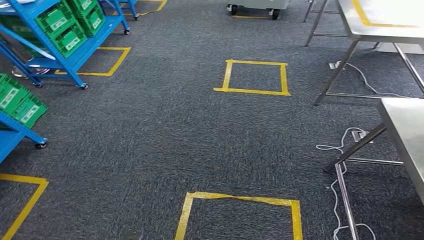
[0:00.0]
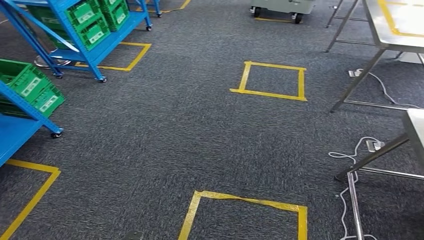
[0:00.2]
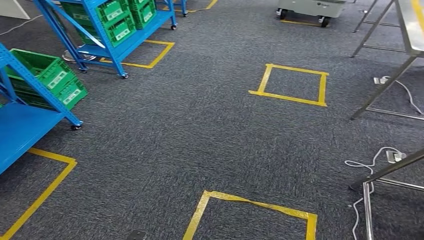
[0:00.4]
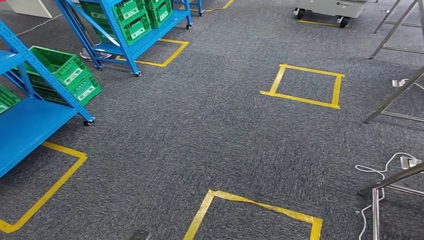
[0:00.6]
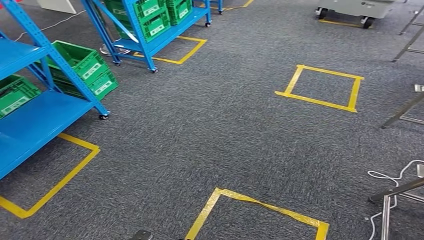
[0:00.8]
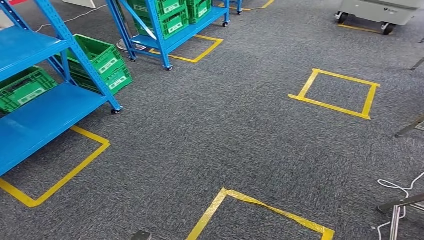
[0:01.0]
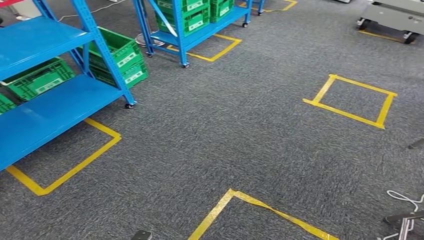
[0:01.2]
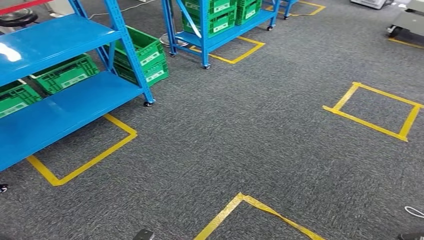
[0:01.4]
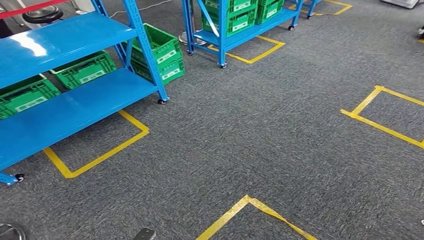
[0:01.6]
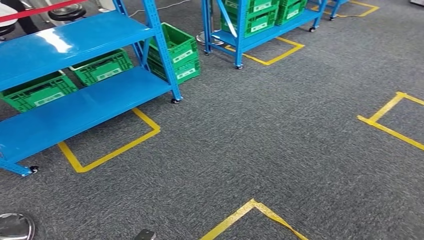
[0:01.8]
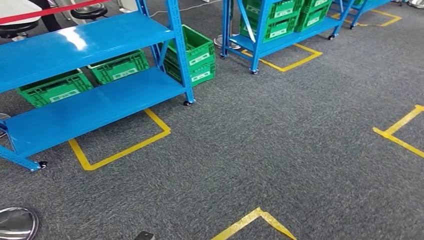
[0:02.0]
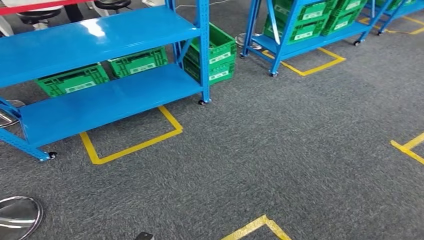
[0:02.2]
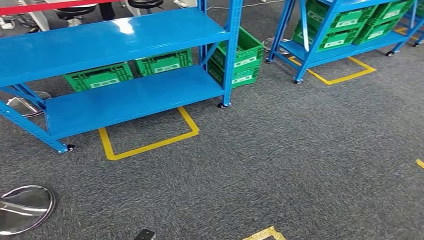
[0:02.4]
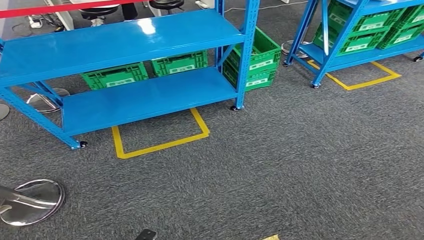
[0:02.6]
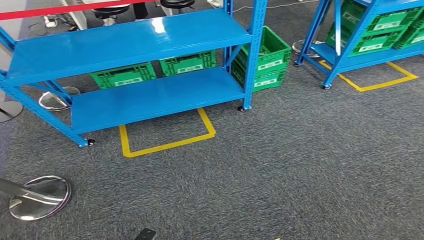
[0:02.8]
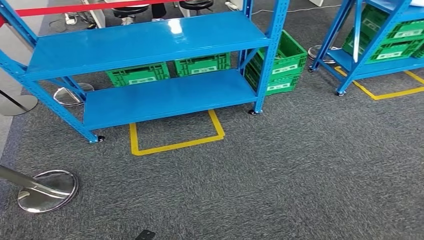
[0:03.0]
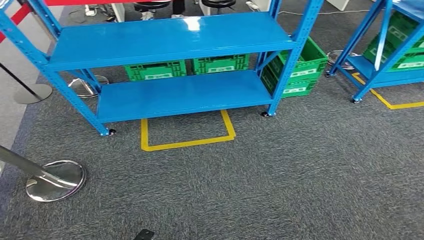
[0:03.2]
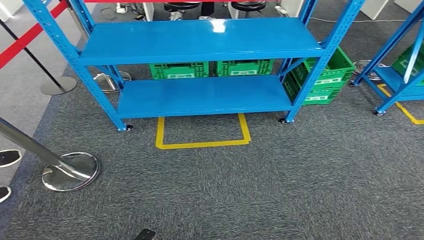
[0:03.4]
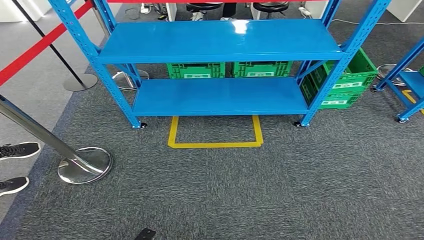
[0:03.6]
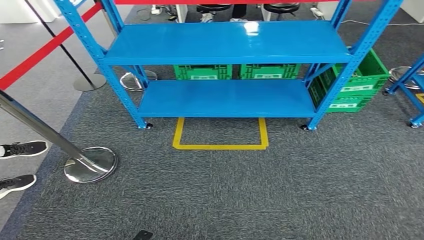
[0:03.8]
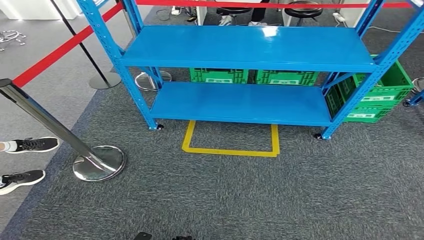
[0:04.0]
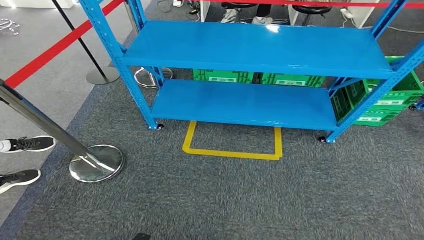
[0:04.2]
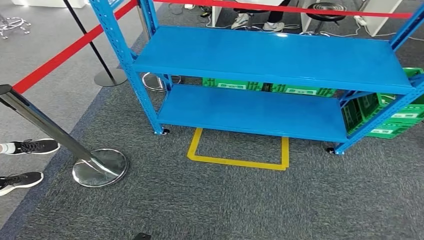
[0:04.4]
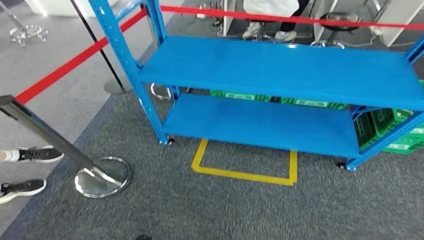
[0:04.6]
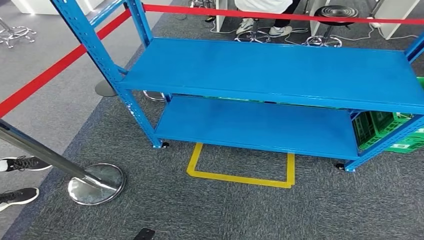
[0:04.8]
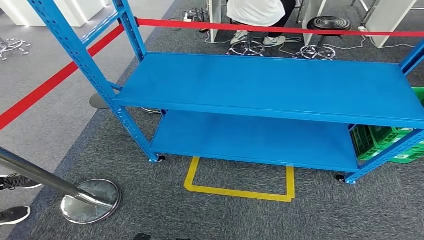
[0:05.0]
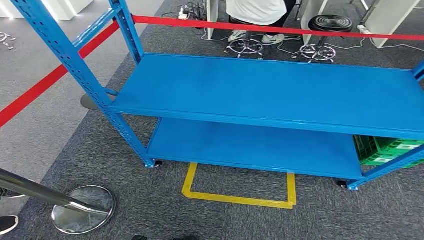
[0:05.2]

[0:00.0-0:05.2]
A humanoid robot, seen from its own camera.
Step, 0:00.0 to 0:05.2: Move to the initial position of the workbench.
